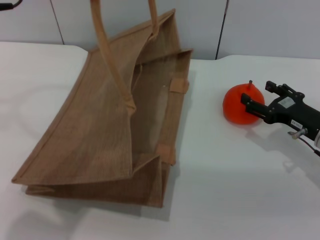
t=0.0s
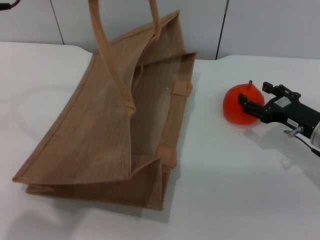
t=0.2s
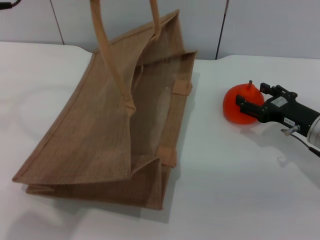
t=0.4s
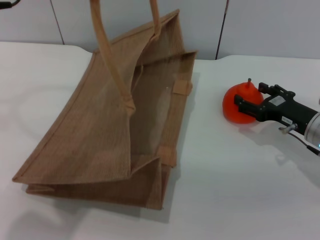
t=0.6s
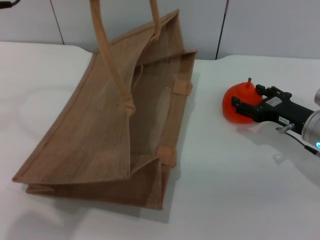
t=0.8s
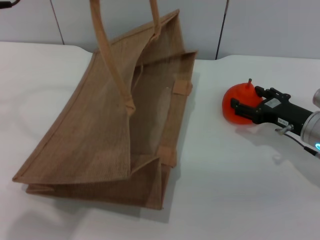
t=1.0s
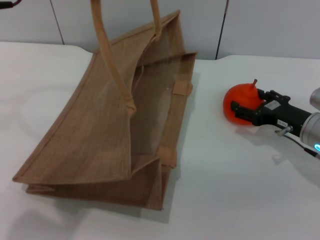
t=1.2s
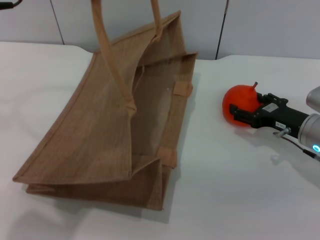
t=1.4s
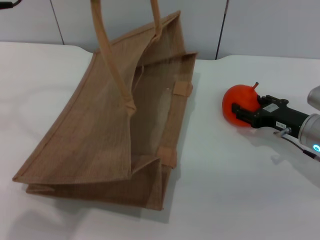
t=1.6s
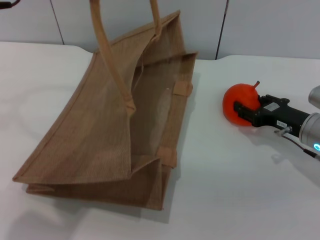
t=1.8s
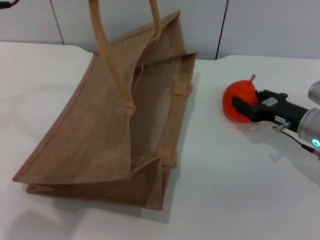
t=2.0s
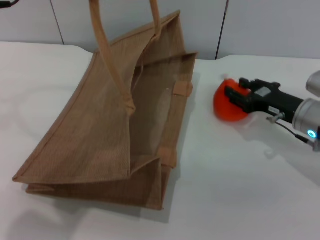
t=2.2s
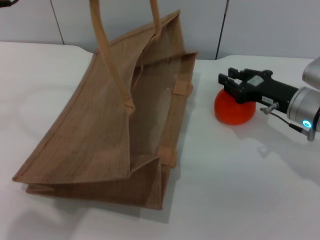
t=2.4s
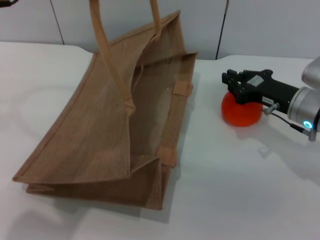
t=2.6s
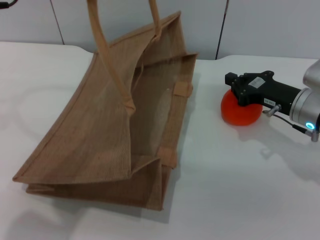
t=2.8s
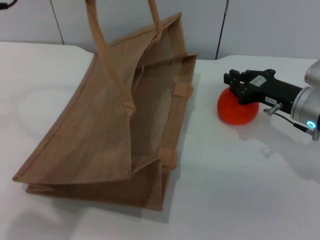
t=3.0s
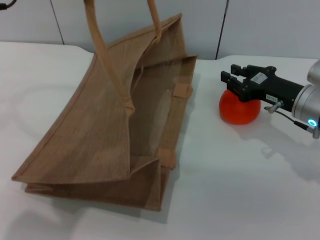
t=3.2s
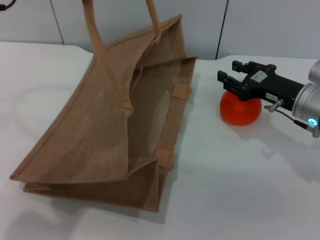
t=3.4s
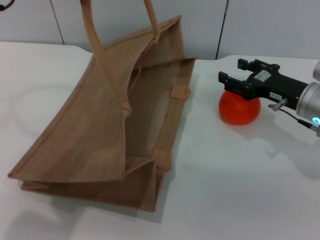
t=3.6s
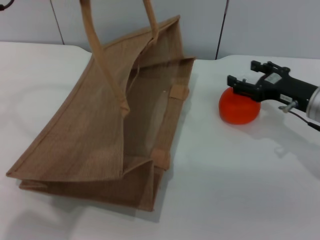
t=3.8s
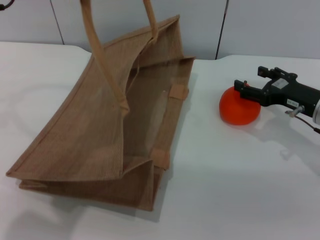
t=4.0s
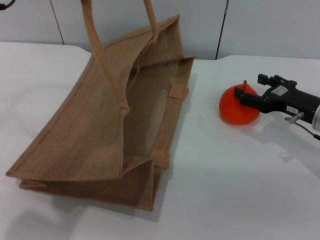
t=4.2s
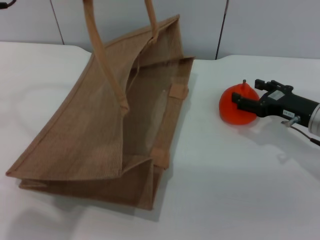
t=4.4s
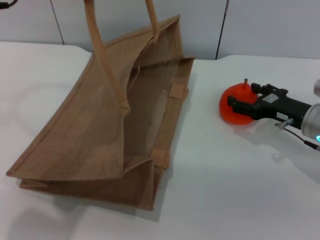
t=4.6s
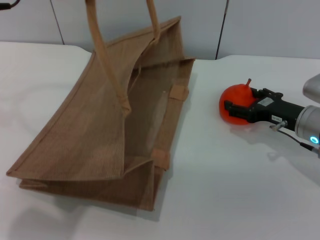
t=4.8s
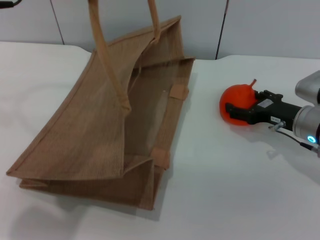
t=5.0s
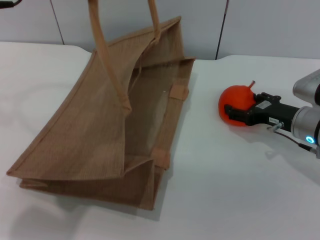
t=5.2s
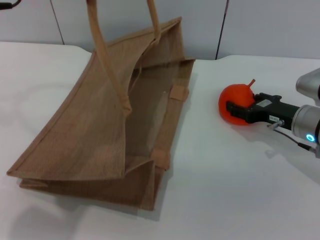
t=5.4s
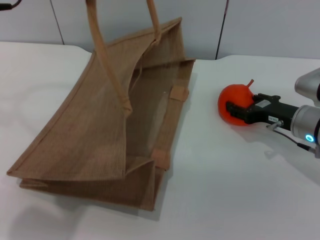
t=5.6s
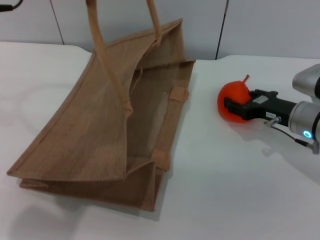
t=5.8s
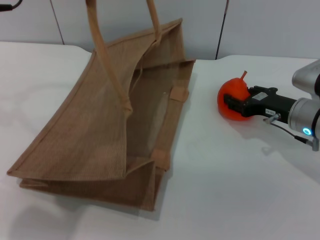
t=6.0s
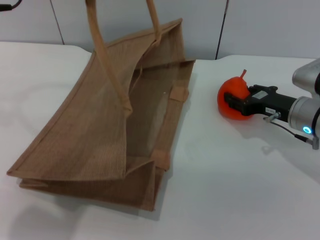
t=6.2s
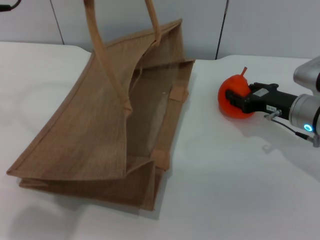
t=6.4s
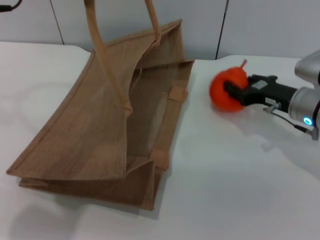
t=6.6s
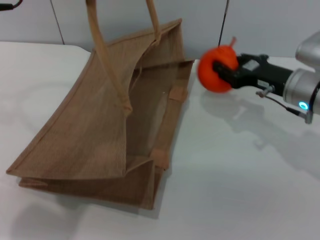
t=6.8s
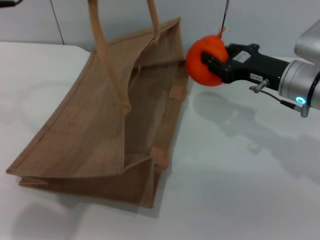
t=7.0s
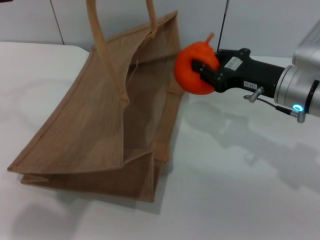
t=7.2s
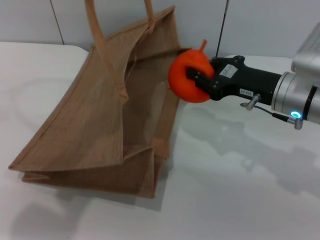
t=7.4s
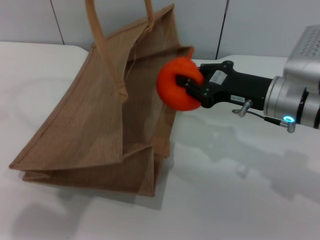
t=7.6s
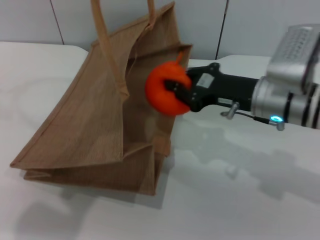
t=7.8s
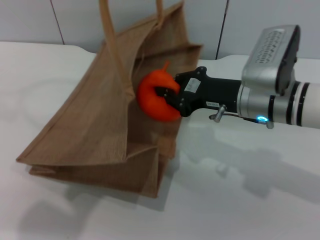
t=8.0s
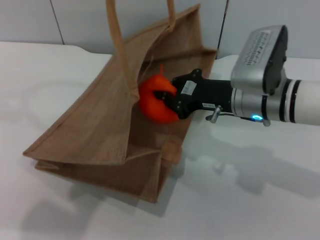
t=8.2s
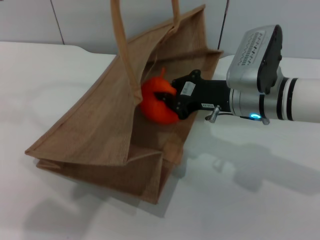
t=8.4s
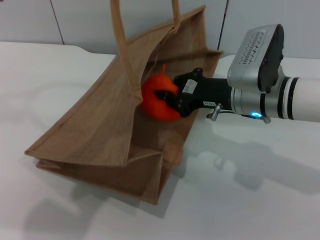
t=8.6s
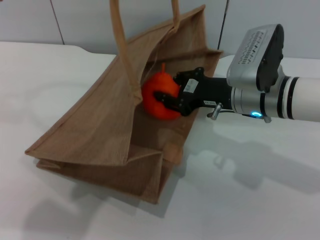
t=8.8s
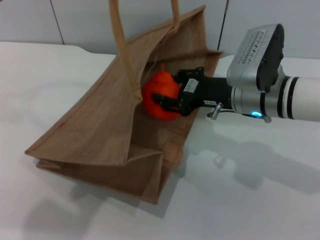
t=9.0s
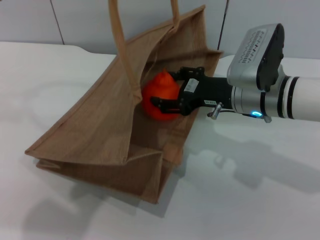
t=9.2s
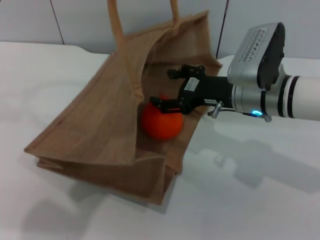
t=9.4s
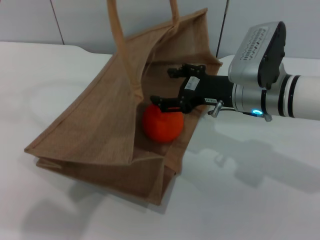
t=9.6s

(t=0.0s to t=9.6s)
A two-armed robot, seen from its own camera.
Task of the whole recording: pick up the orange from the table and place it in the brown handbag.
Step, t=0.0s - t=6.6s: Pick up the orange with the right gripper.
t=0.0s - t=1.6s: The grippers stay close to where they were, moving slightly.
t=1.6s - t=3.2s: The right gripper shifts by about 5 cm, and closes its fingers.
t=3.2s - t=4.8s: The right gripper opens.
t=4.8s - t=6.4s: The right gripper closes its fingers.
t=6.4s - t=8.0s: The right gripper heads to the left and upward, covering approximately 10 cm, and closes.
t=8.0s - t=9.6s: The right gripper opens up.

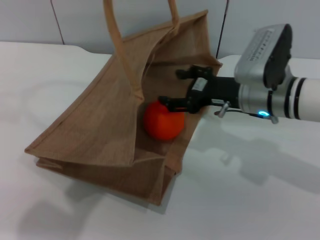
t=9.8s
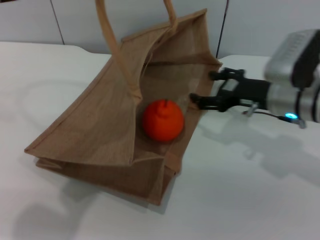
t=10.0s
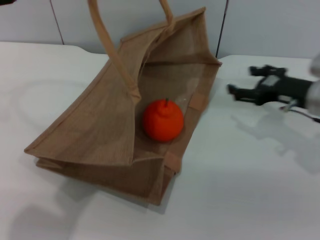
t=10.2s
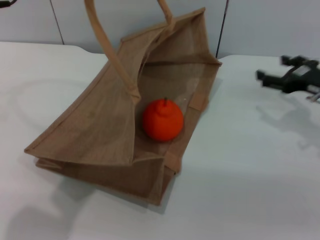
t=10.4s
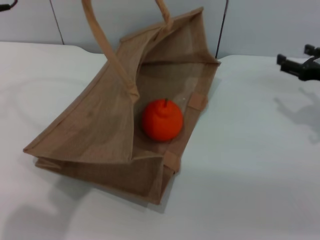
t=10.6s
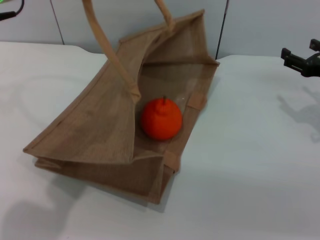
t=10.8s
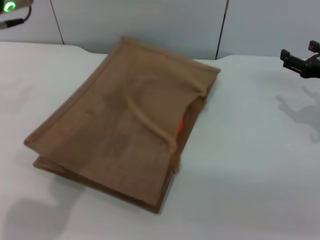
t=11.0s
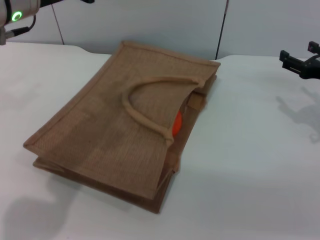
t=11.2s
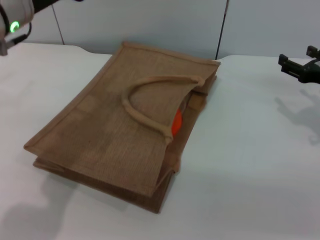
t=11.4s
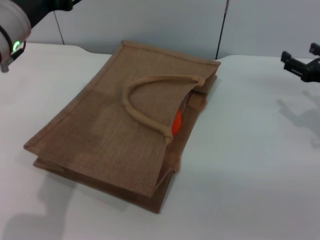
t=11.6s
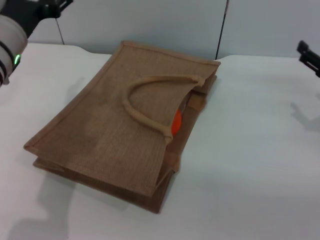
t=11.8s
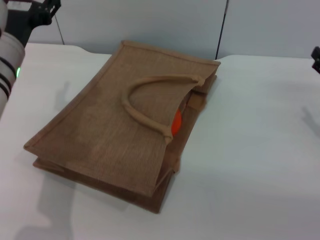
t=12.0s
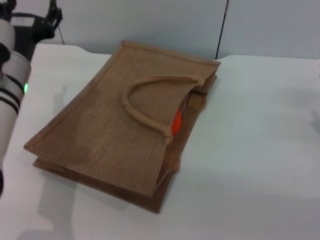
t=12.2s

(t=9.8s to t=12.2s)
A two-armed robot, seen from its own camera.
Task of the whole recording: pick up the orange from the table and place it in the brown handbag.
Step, t=10.2s - t=11.4s: Lower the woven bag with the left gripper to close it.
t=9.8s - t=11.0s: The left gripper ends up roughly 5 cm from where it was, while the right gripper is displaced to the right by roughly 15 cm.
t=11.0s - t=12.2s: The right gripper moves backward, roughly 5 cm, while the left gripper is displaced downward by about 15 cm, and opens.
